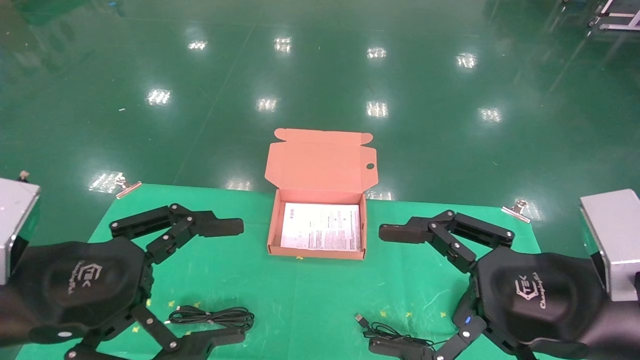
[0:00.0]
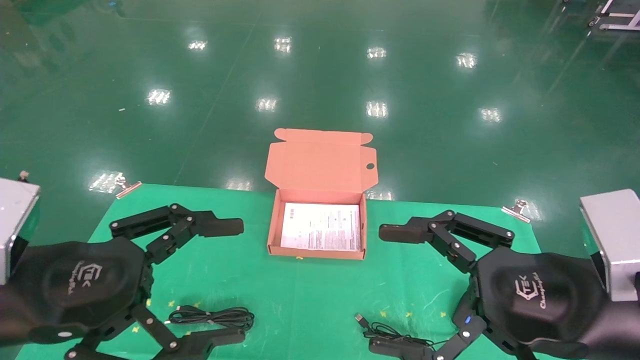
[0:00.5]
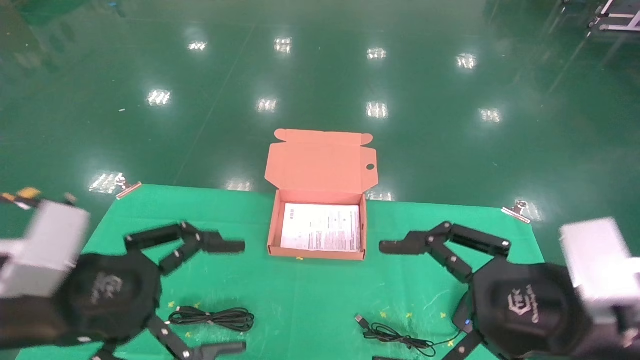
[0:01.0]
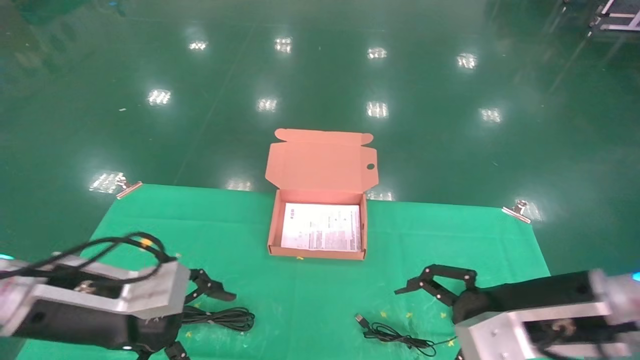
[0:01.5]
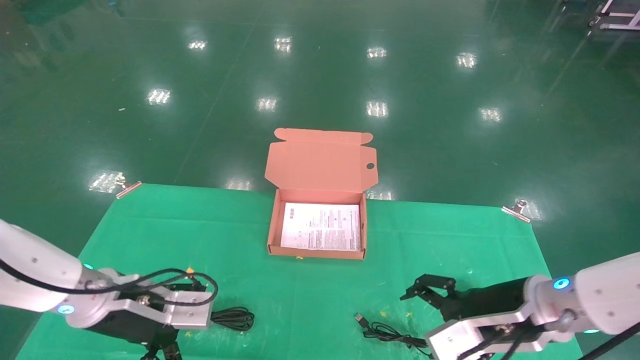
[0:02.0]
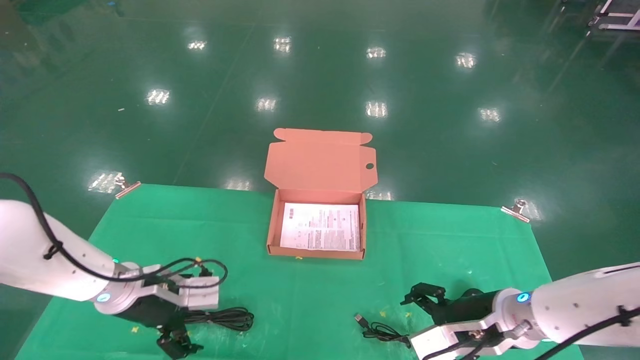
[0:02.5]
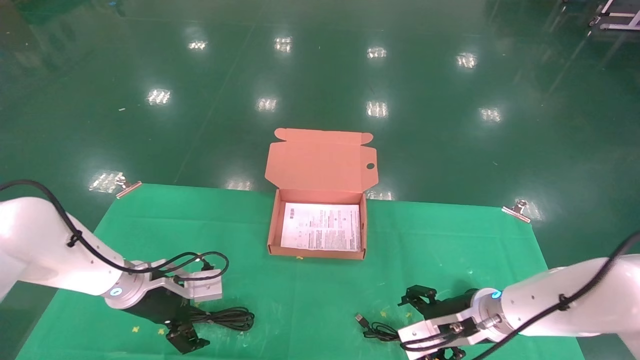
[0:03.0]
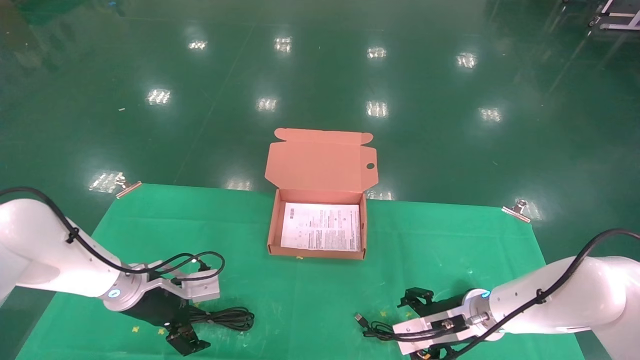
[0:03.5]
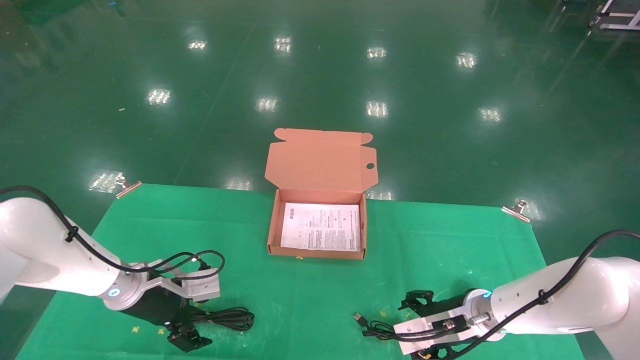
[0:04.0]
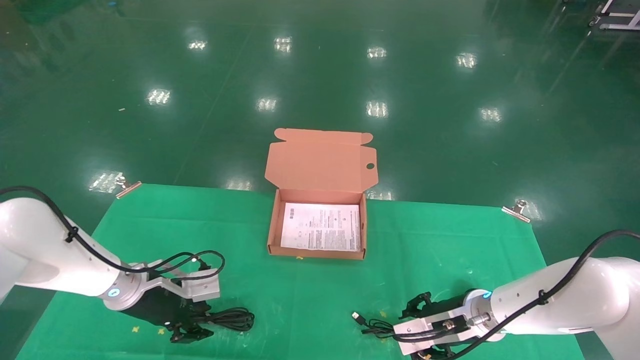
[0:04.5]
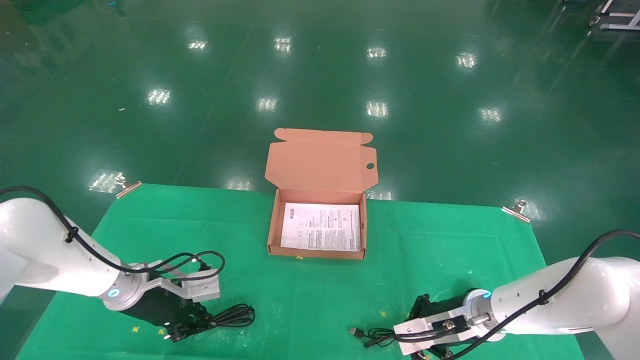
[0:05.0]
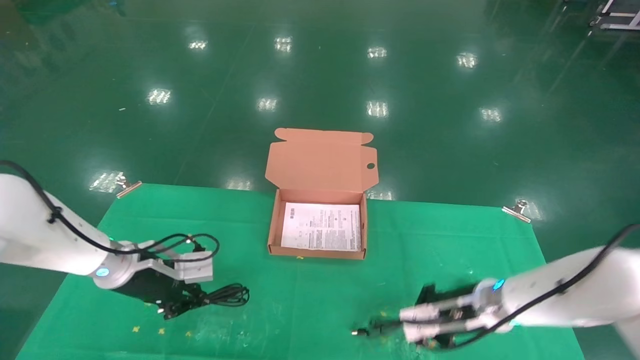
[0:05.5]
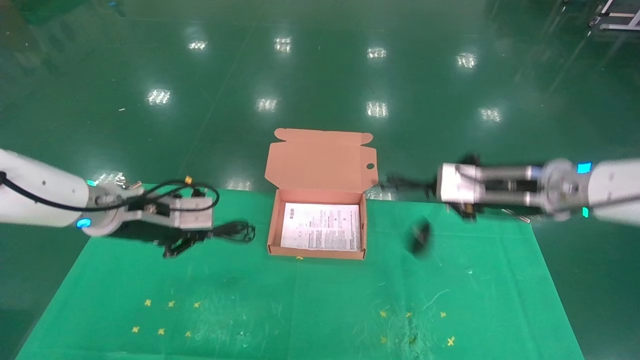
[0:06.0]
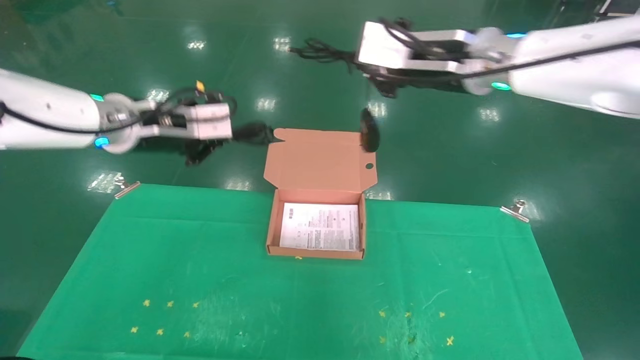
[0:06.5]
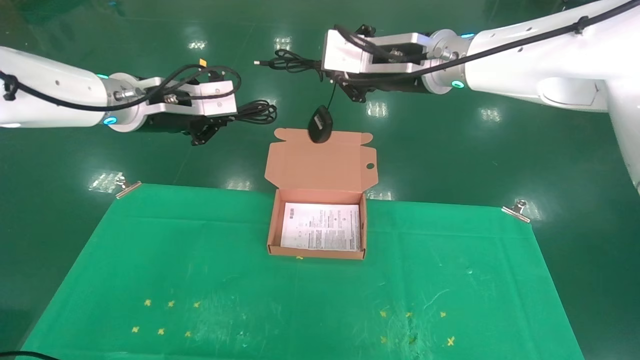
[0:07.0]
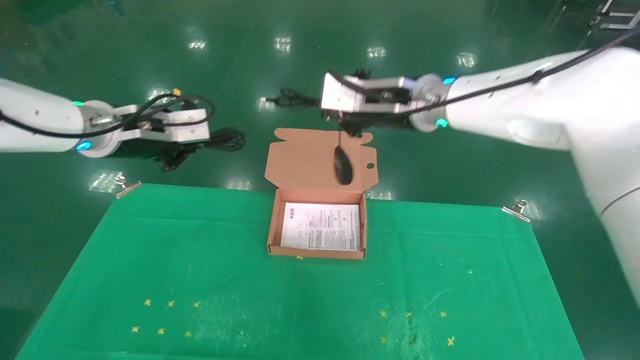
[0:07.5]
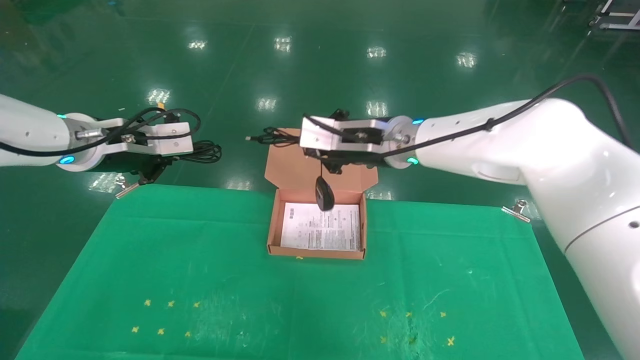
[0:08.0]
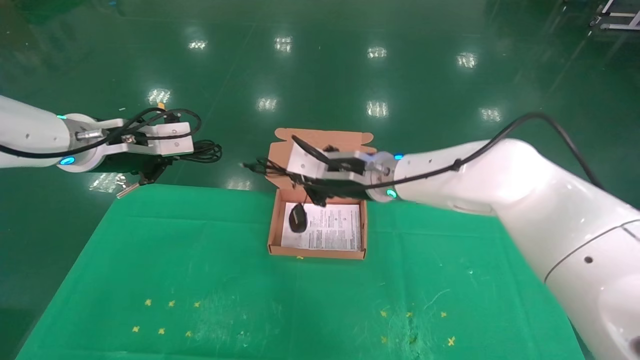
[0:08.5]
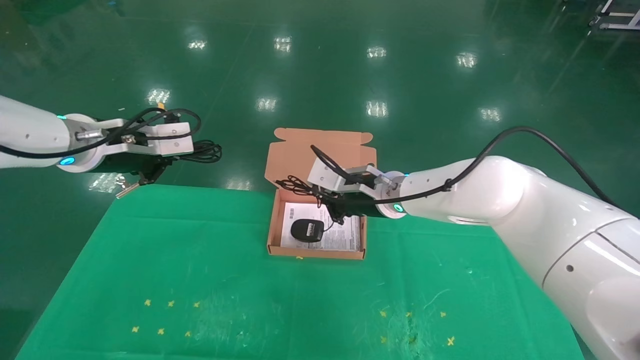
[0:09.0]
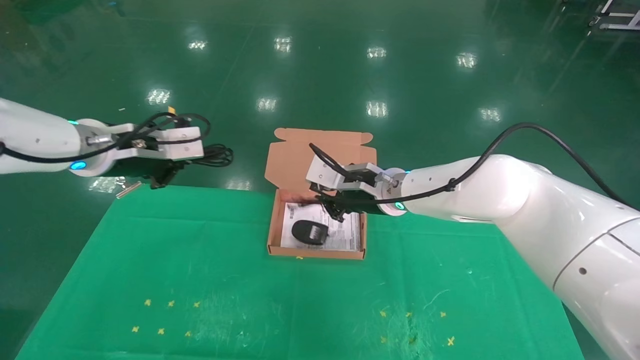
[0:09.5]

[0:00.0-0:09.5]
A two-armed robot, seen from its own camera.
Task of the whole recording: grasp data cable left put into box grasp mouse right put into box.
Step, 0:01.5 to 0:06.0: Grab and pick up both the mouse and power cord from the accessory packaging area at the same time.
0:00.0 to 0:02.0: The two grippers go approximately 15 cm forward and downward.
0:02.0 to 0:04.0: The right gripper heads forward and downward, covering roughly 15 cm. Meanwhile the left gripper heads forward, covering about 10 cm.
0:04.0 to 0:05.5: The left gripper travels upward by some 5 cm, and closes up, while the right gripper closes up.
0:05.5 to 0:07.5: The left gripper heads upward, covering approximately 20 cm, while the right gripper is displaced upward and to the left by roughly 30 cm.
0:07.5 to 0:09.5: The right gripper heads downward, covering roughly 15 cm.

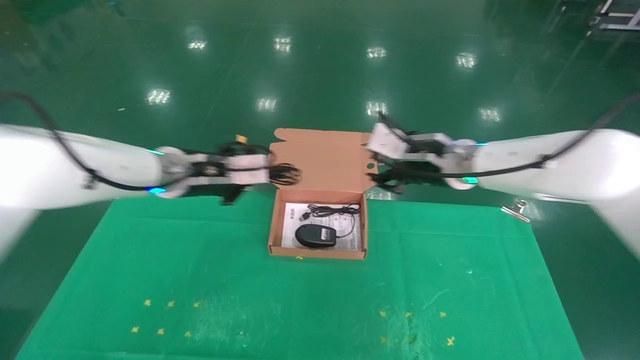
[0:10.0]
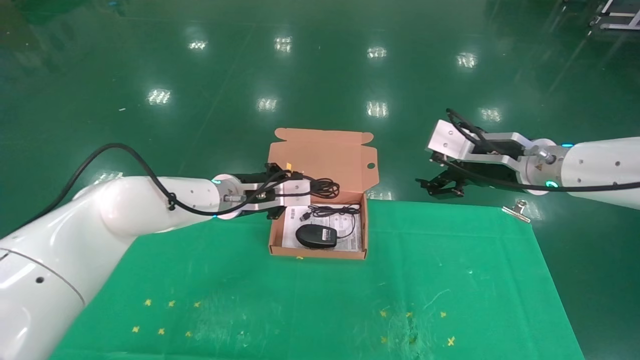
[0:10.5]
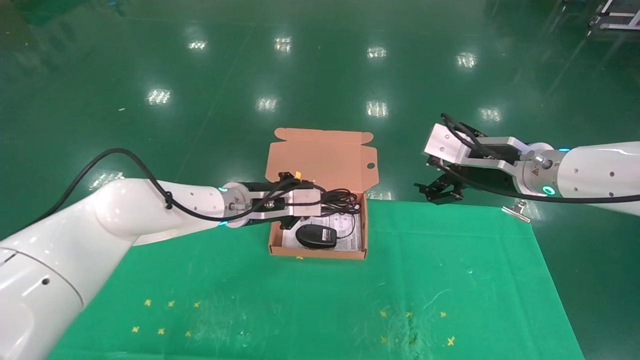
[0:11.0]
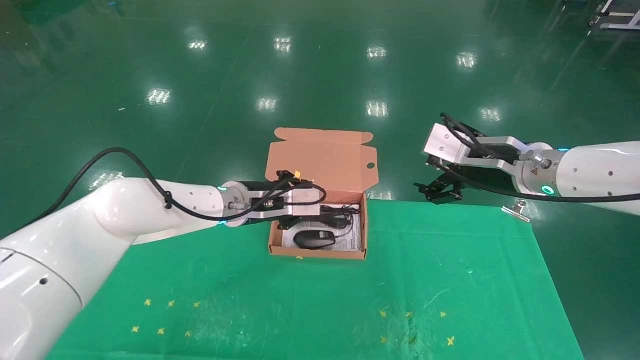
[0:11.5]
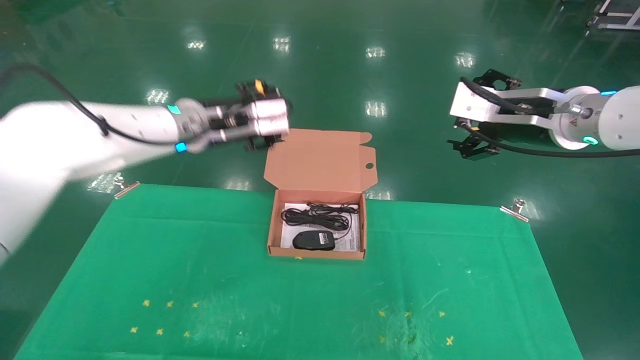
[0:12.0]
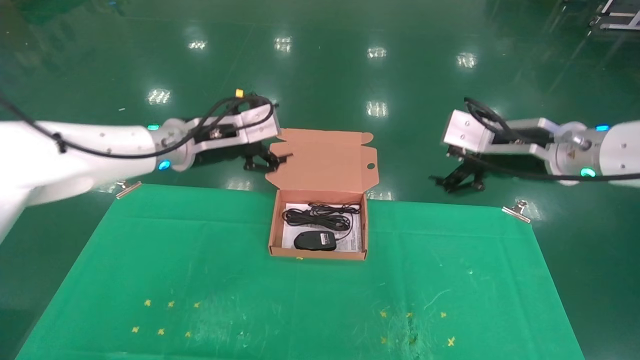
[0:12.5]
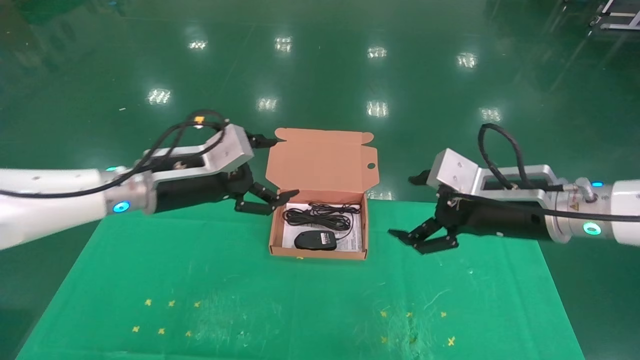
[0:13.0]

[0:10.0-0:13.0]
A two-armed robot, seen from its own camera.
Task of the whole recording: grasp data cable left put into box grasp mouse right put into box.
0:10.0 to 0:11.5: The left gripper heads to the right and downward, covering about 10 cm. Meanwhile the right gripper goes about 10 cm to the right and backward, and opens its fingers.
0:11.5 to 0:13.0: The left gripper shifts approximately 15 cm to the left, backward and upward, and opens its fingers; the right gripper travels backward by about 5 cm.
